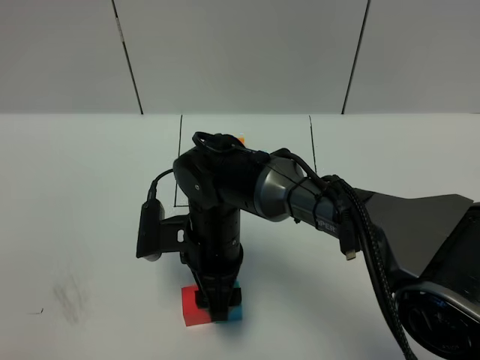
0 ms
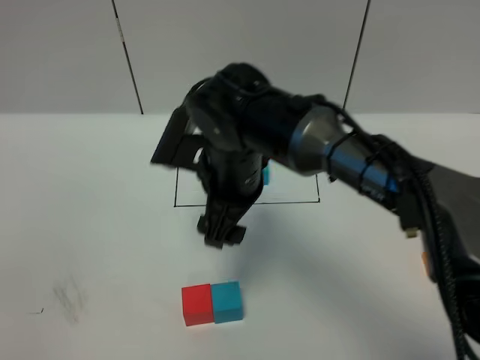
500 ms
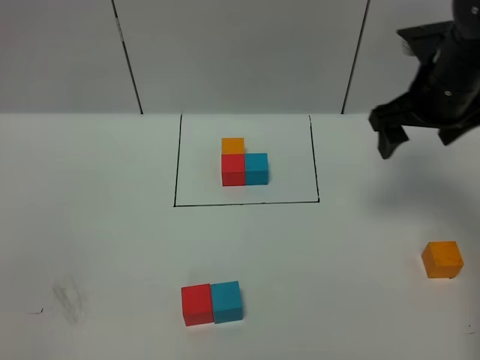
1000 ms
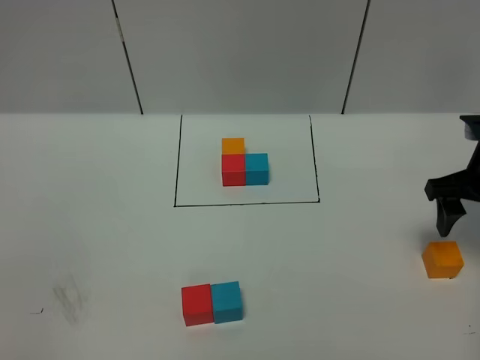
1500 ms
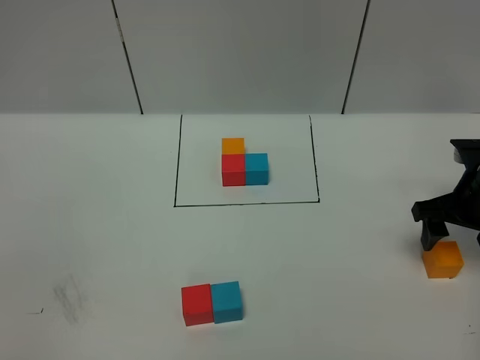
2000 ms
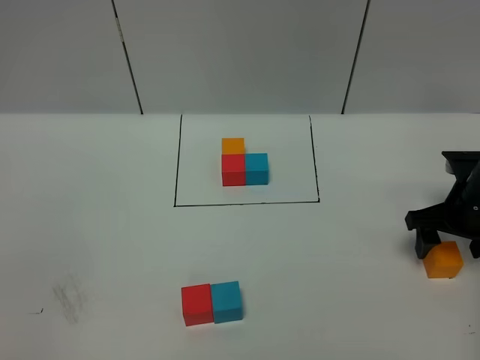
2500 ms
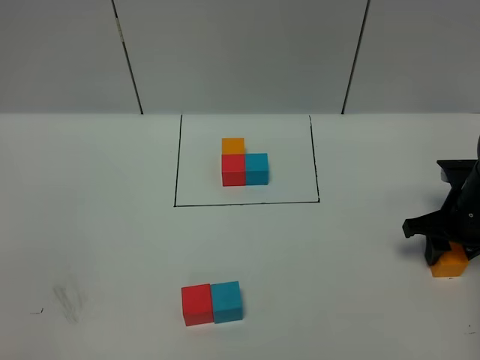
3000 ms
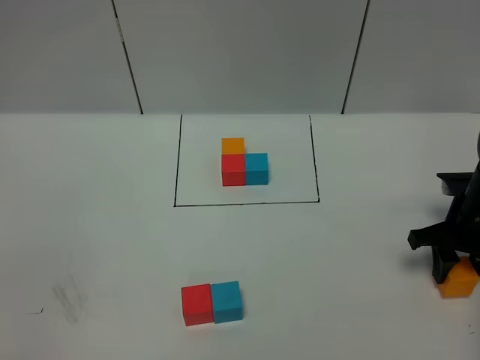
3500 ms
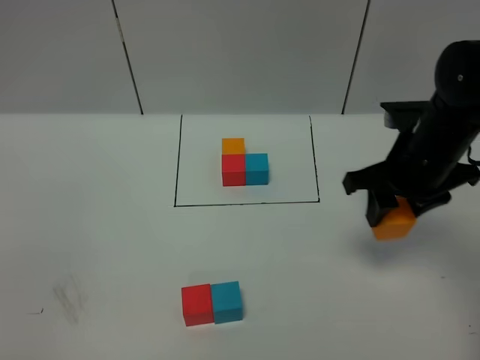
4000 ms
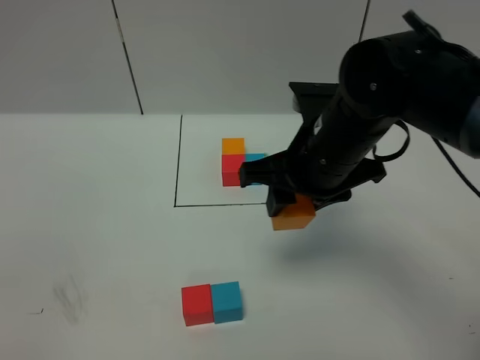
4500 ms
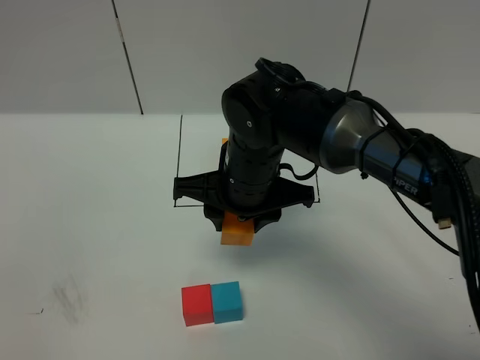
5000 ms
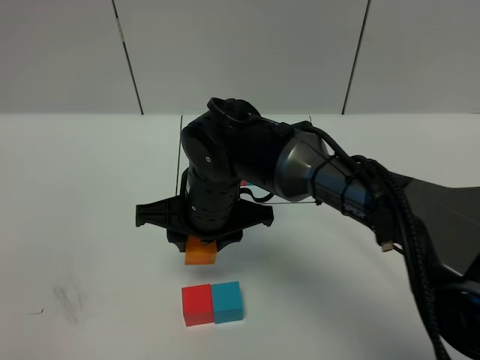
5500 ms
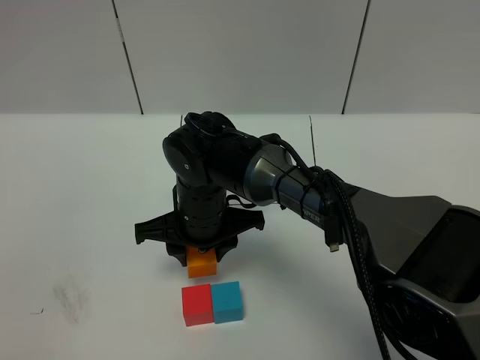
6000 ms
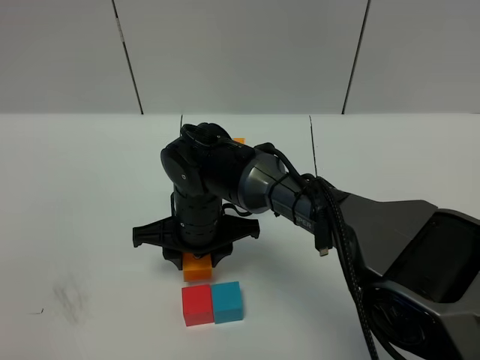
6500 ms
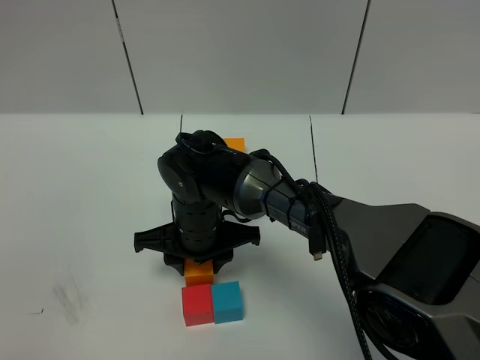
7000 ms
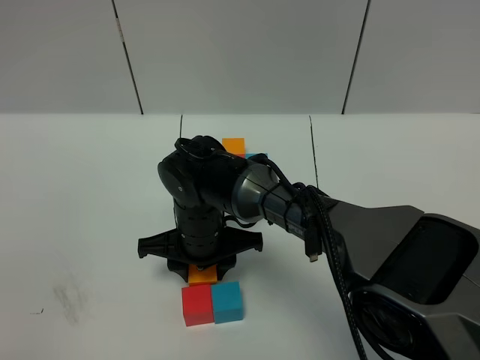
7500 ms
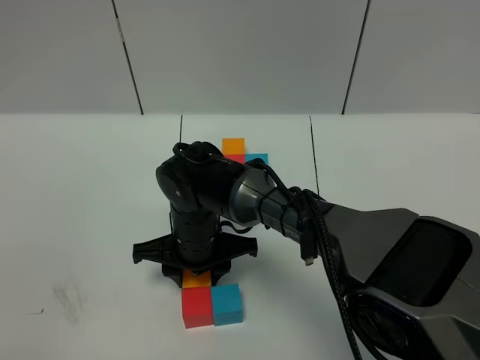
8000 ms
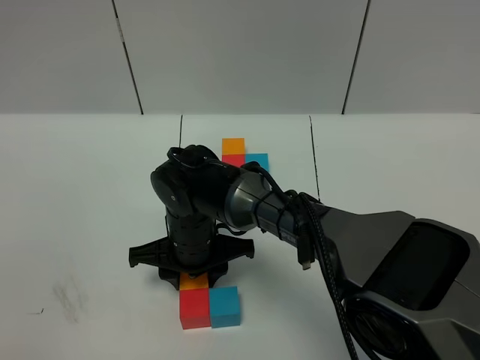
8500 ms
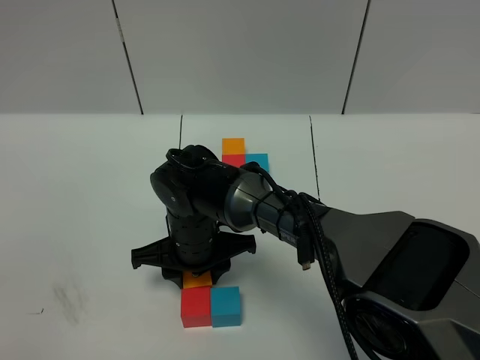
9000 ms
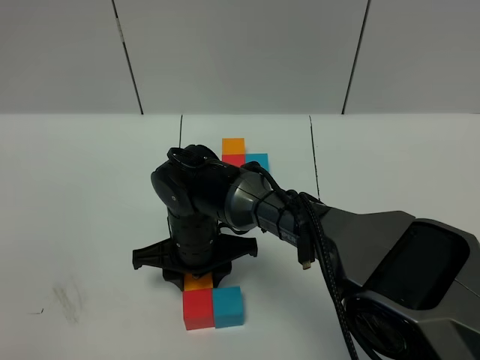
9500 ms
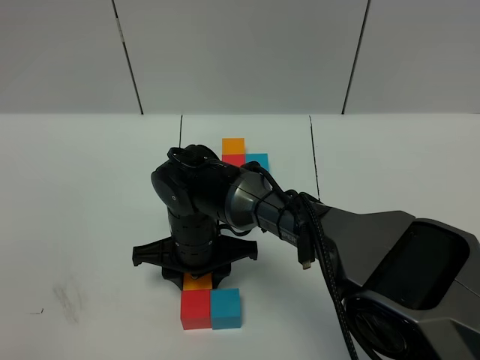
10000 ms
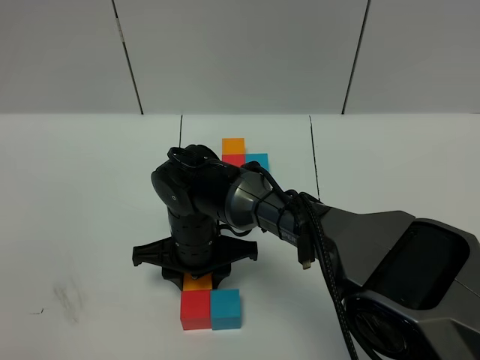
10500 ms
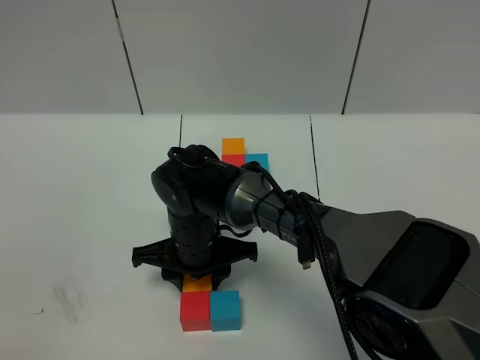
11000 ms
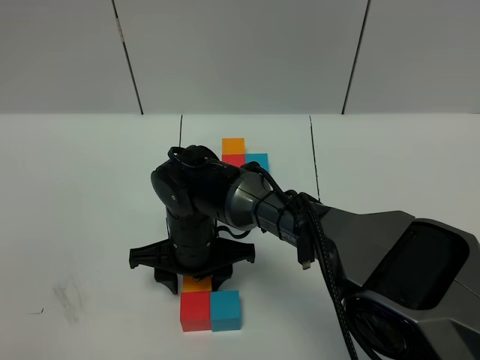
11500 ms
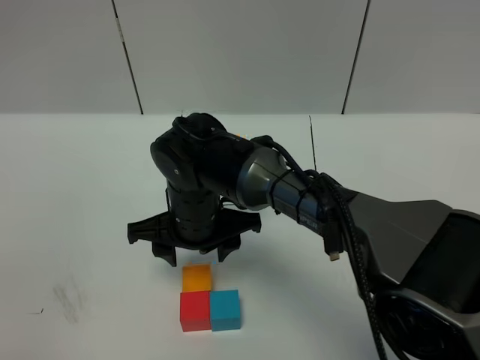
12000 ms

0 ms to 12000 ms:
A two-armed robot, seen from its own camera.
Task of the whole recording: According to the building block template in front, assemble the scattered blocks together.
Step, 500 ms to 11500 ms: Put the orange cube on the behind of the red cube.
0 ms to 2000 ms: The right gripper moves to the right, about 35 cm.
2000 ms to 4000 ms: The right gripper is displaced to the left and upward by about 15 cm, and closes up.
4000 ms to 6000 ms: The right gripper travels to the left by approximately 25 cm.
6000 ms to 10000 ms: The grippers make only small movements.
10000 ms to 12000 ms: The right gripper goes approximately 5 cm upward.

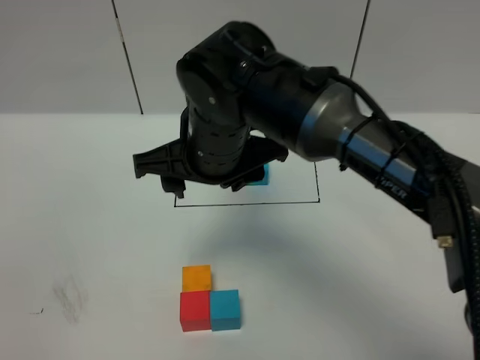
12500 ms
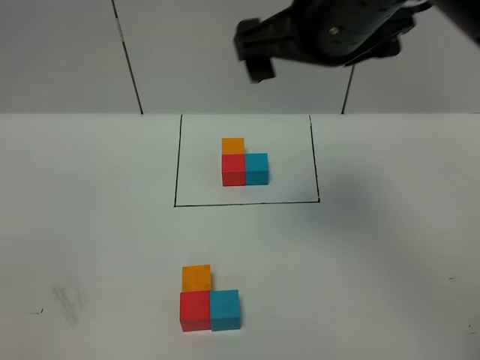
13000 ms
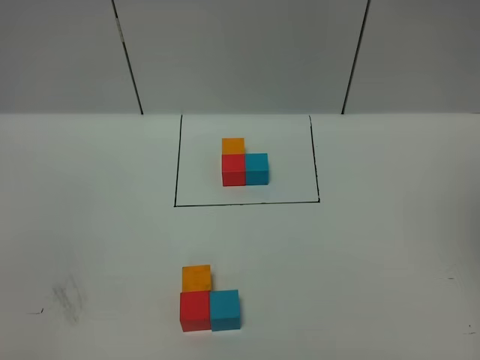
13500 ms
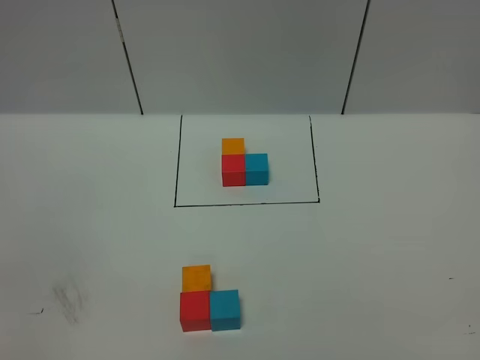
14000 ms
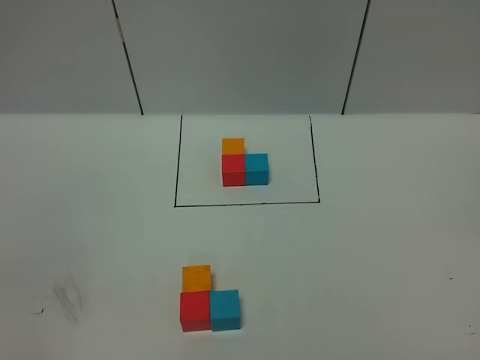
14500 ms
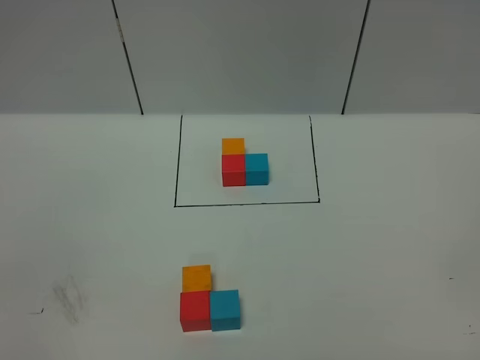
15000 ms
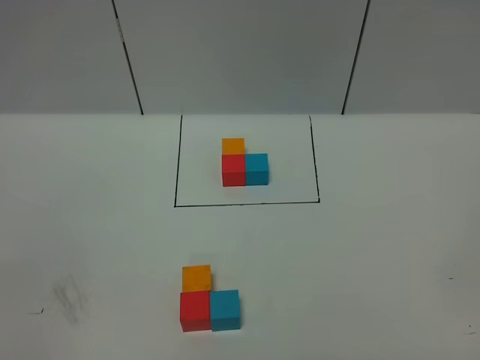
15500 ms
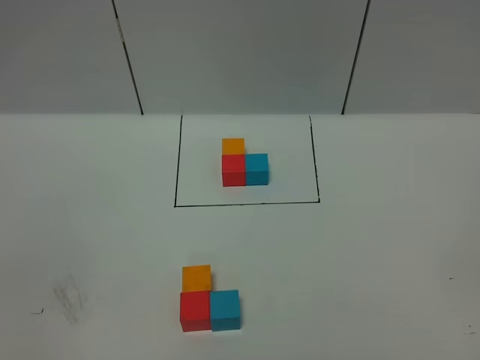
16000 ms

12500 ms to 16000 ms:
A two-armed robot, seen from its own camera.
Task of the whole recording: According to the building block template in front, assemble the scattered blocks together.
12500 ms to 14500 ms: The right gripper shifts approximately 50 cm to the right and backward.
